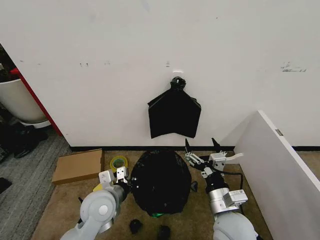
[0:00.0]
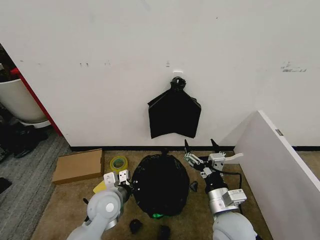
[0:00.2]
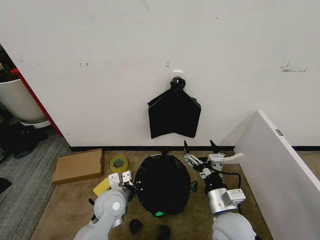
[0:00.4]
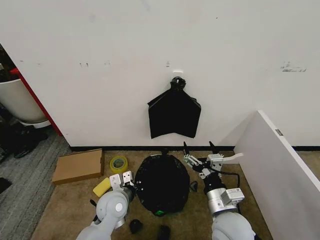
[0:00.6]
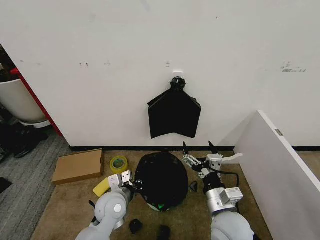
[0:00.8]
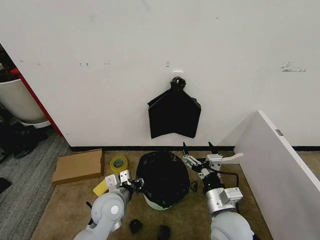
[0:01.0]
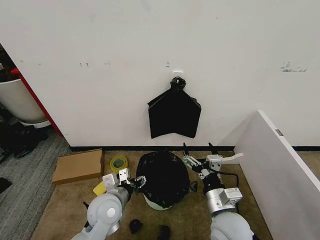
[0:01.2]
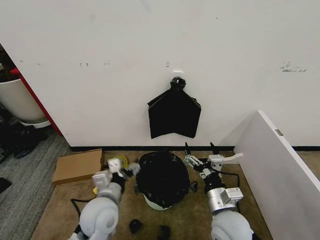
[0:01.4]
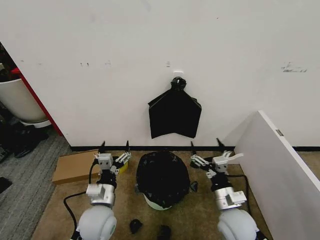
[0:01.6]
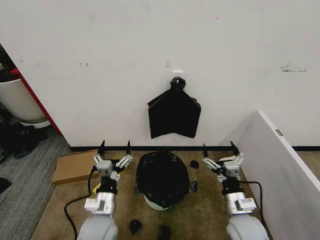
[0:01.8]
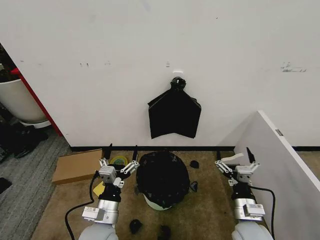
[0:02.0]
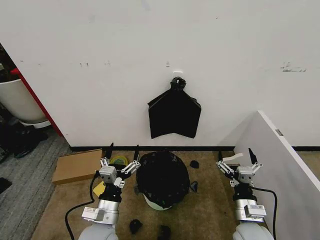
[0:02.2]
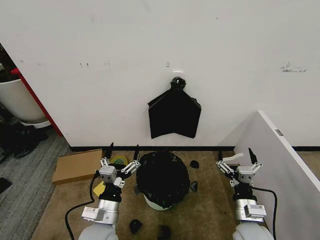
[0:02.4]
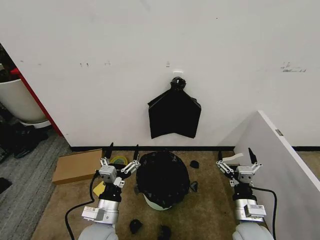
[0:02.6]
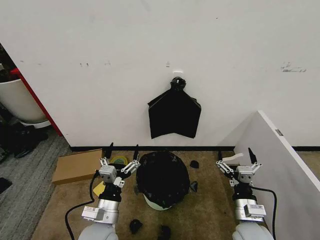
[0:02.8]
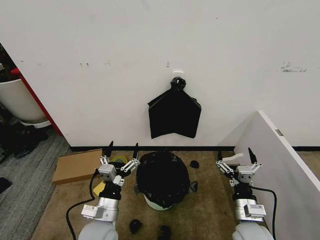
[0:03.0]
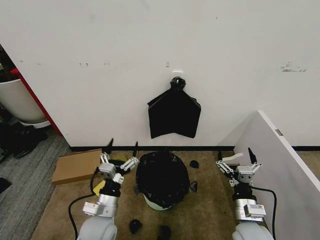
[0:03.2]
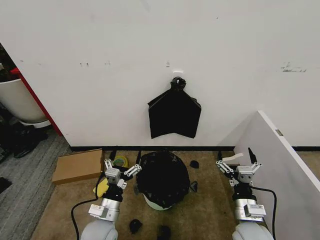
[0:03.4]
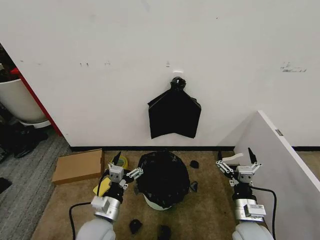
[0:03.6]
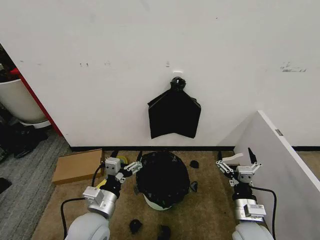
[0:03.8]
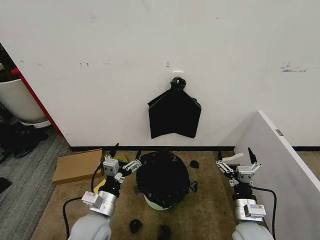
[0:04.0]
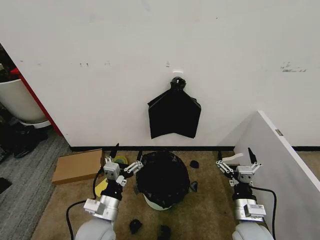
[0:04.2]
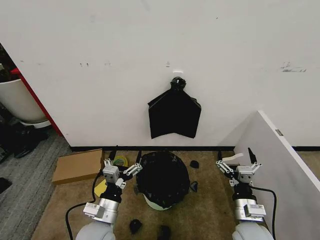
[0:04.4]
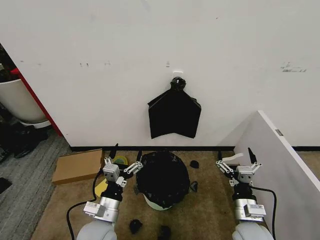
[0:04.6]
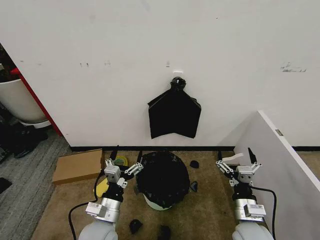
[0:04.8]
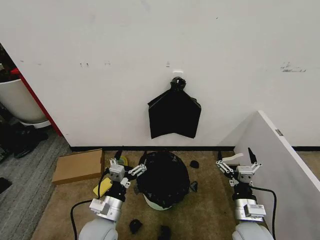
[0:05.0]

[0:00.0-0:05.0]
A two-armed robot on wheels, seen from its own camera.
Task of the whole recording: Place the garbage bag over the trash bin.
0:00.0 to 0:01.6: The right gripper goes about 5 cm downward. The left gripper swings up and down, about 5 cm each way, with 2 reversals, and opens its fingers.

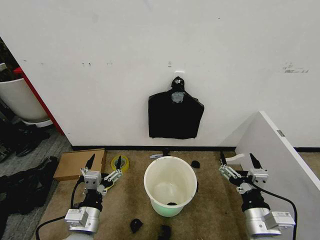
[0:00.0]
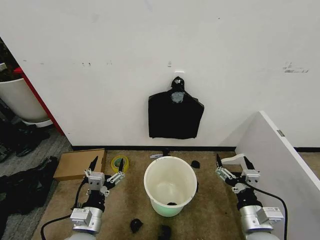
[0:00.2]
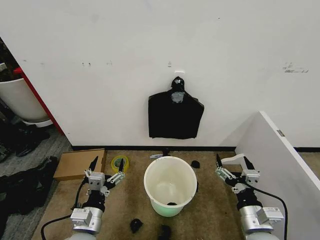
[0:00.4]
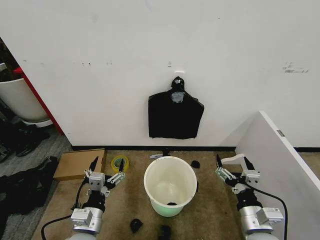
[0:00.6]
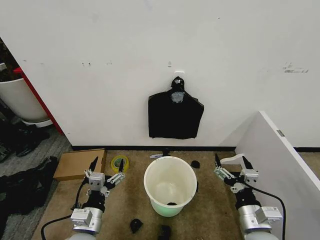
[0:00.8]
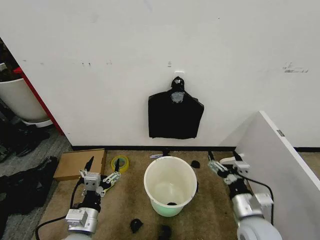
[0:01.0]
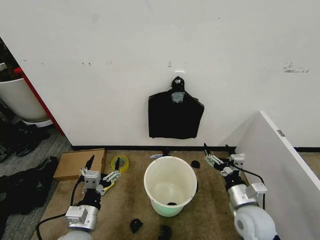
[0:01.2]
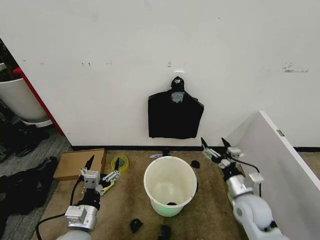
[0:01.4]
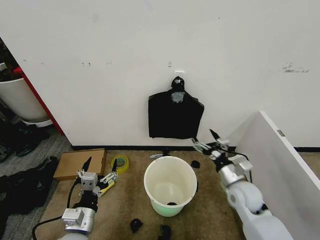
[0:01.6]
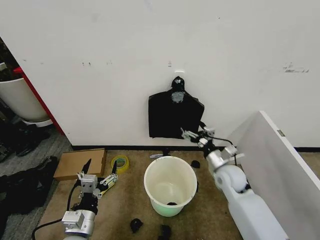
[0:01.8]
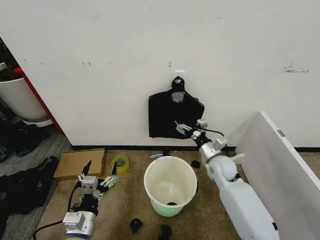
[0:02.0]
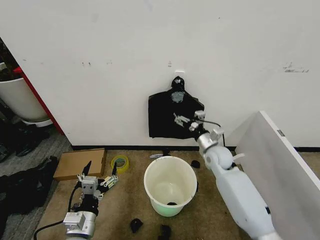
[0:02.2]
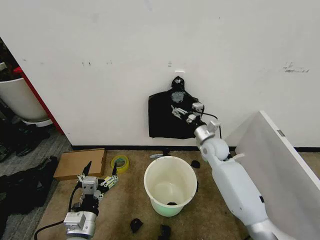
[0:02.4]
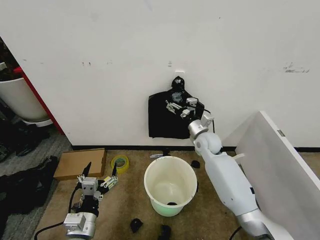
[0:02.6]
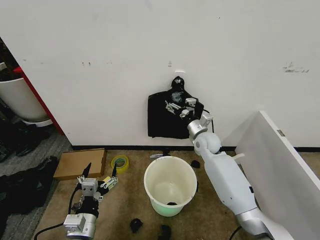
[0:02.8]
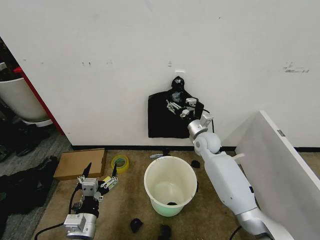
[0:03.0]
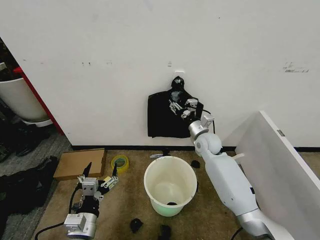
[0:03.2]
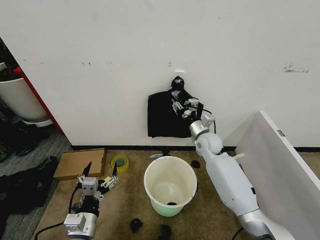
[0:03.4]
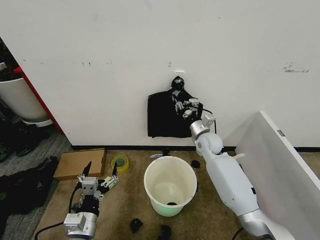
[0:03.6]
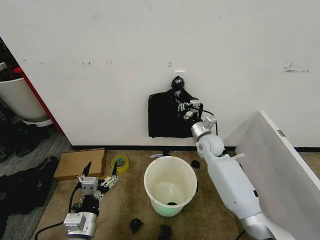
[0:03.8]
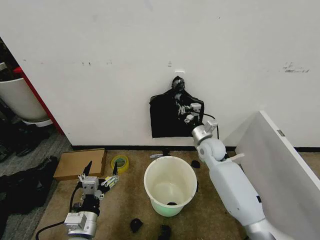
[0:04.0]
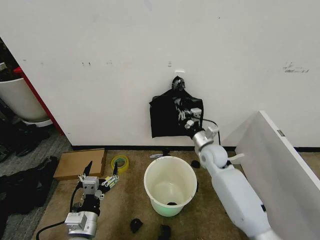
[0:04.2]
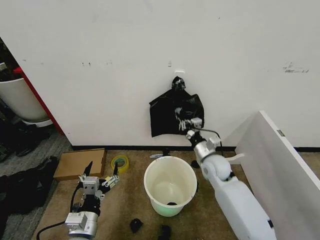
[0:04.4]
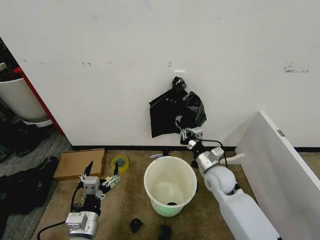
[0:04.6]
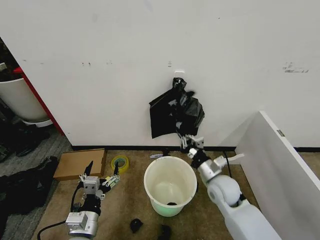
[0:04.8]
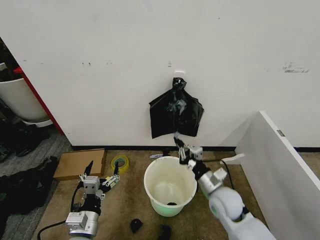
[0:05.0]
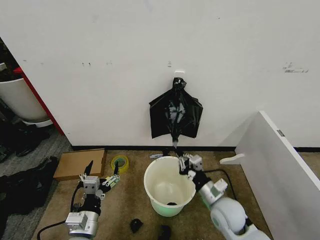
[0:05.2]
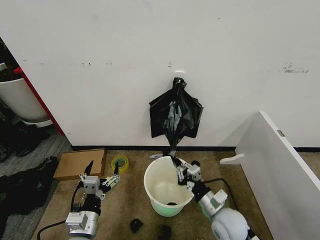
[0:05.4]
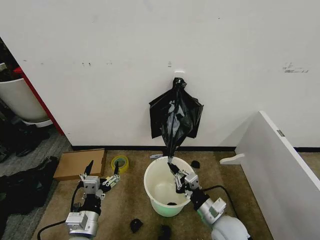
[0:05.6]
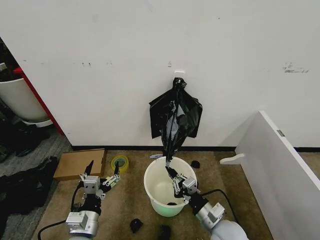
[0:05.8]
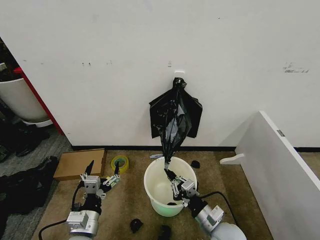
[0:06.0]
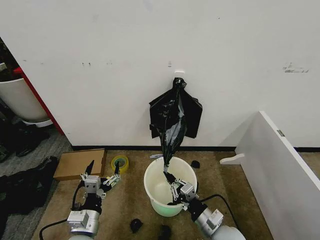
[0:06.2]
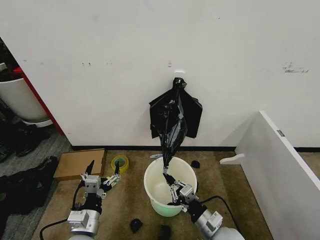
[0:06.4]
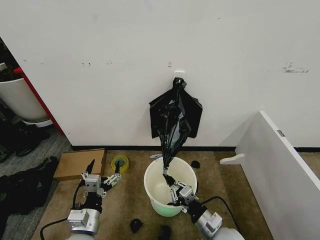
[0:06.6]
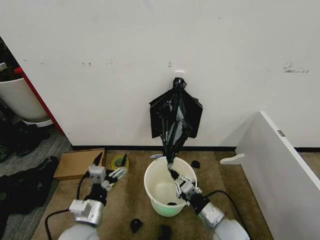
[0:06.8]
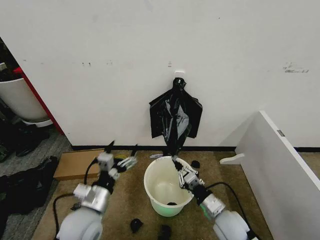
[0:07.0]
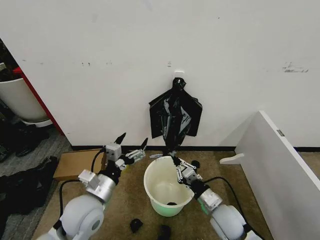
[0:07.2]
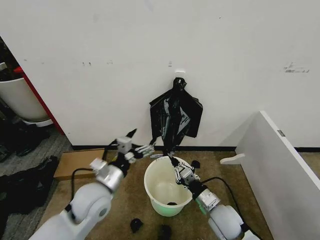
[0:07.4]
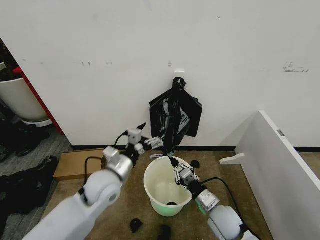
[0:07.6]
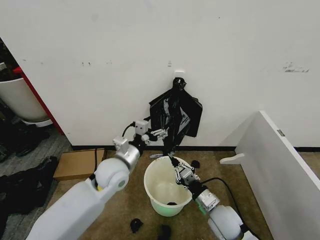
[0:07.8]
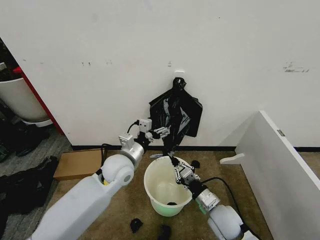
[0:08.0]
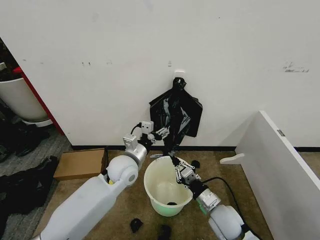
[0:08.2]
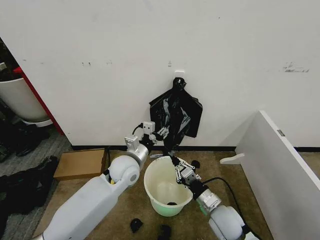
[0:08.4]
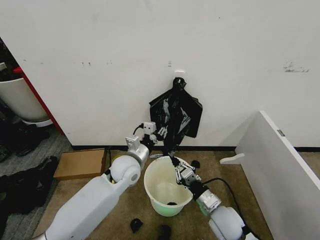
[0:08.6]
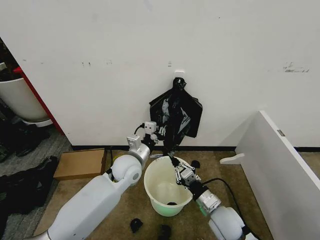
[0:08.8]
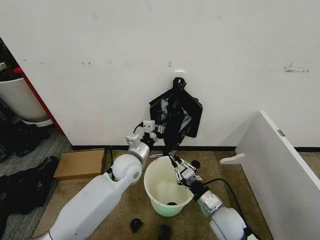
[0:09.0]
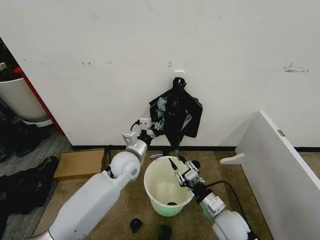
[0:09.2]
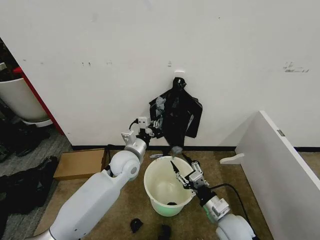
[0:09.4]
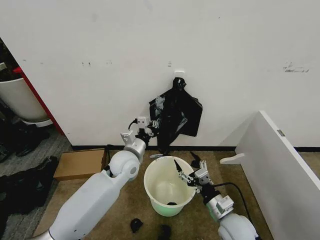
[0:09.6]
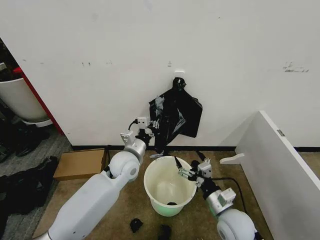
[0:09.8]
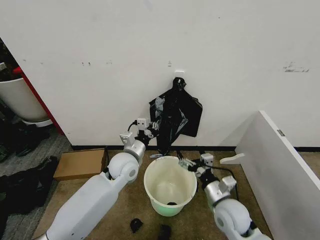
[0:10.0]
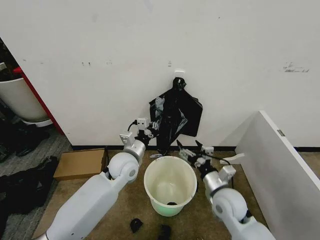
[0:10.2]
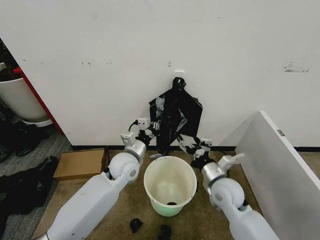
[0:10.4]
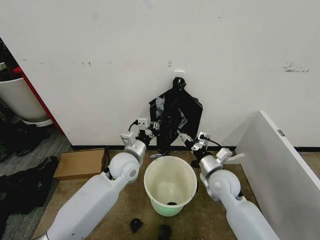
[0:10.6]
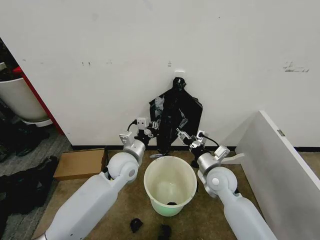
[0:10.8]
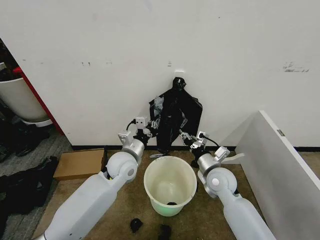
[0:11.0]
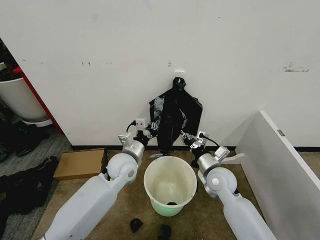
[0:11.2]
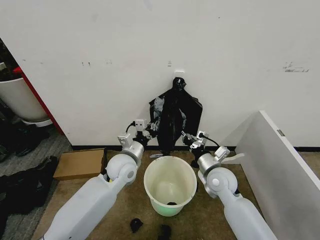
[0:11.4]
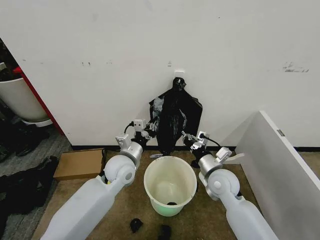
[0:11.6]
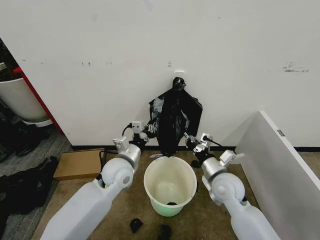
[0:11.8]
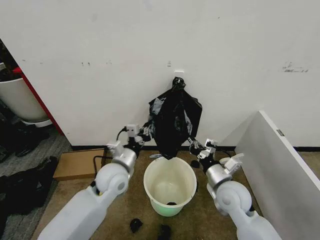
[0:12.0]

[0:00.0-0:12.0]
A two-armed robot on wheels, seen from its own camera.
Task of the whole recording: Place the garbage bag over the trash bin.
0:01.6 to 0:03.0: The right gripper moves forward and to the left, approximately 20 cm.
0:03.0 to 0:04.4: The right gripper shifts roughly 10 cm backward, and closes up.
0:04.4 to 0:06.0: The right gripper heads backward, covering about 20 cm.
0:06.0 to 0:07.6: The left gripper shifts approximately 20 cm forward and upward; the right gripper shifts approximately 5 cm forward.
0:07.6 to 0:09.0: The left gripper heads forward and to the right, covering about 10 cm, and closes up.
0:09.0 to 0:10.4: The right gripper heads forward and upward, covering approximately 10 cm, and opens its fingers.
0:10.4 to 0:12.0: The right gripper closes its fingers, while the left gripper ends up some 5 cm from where it was.

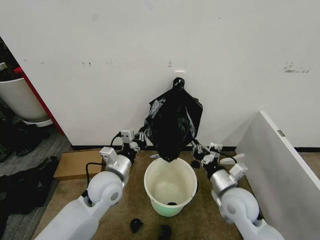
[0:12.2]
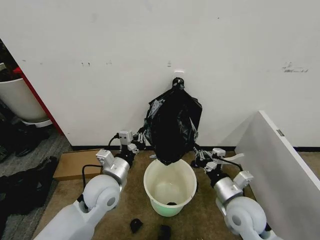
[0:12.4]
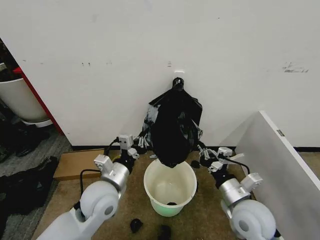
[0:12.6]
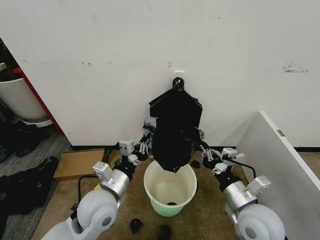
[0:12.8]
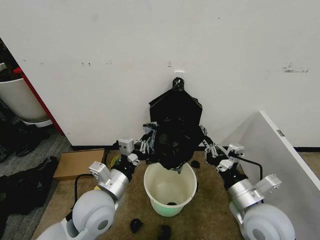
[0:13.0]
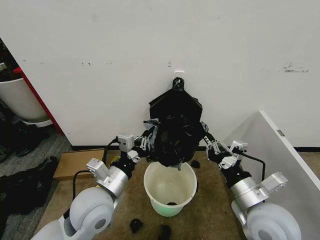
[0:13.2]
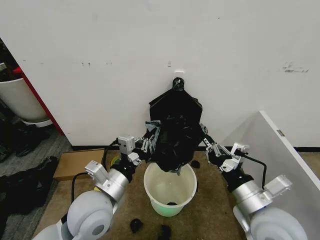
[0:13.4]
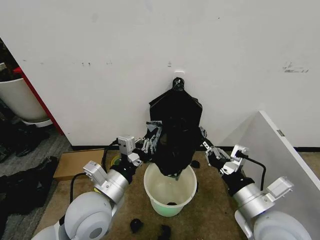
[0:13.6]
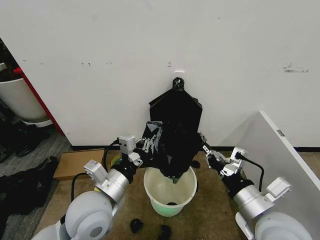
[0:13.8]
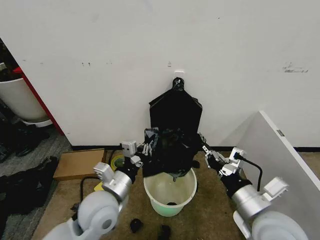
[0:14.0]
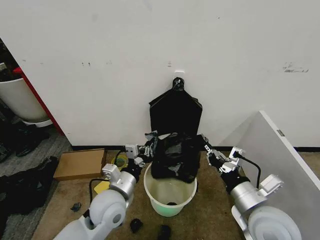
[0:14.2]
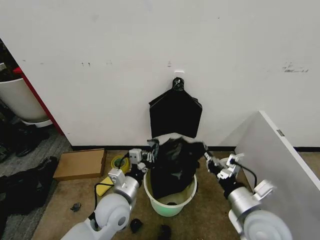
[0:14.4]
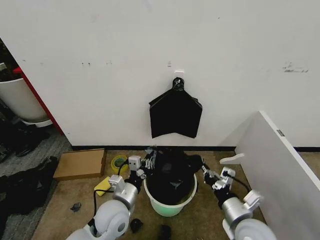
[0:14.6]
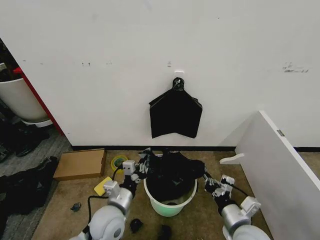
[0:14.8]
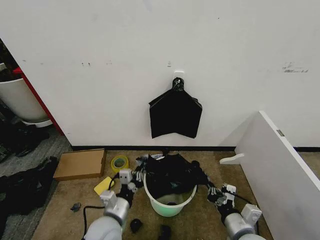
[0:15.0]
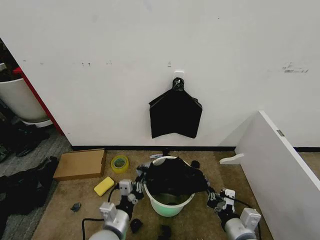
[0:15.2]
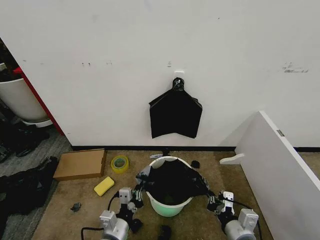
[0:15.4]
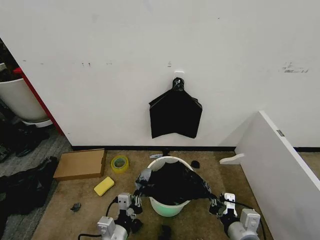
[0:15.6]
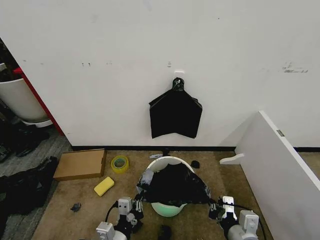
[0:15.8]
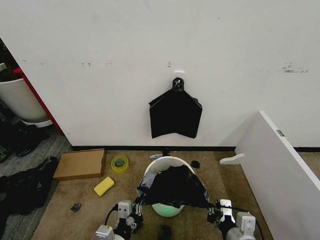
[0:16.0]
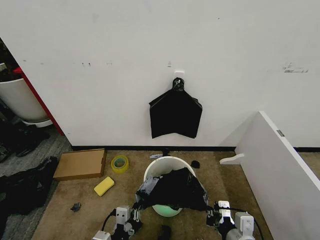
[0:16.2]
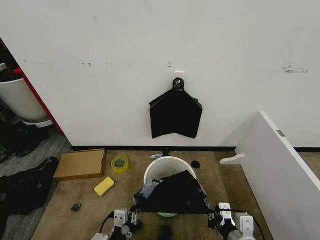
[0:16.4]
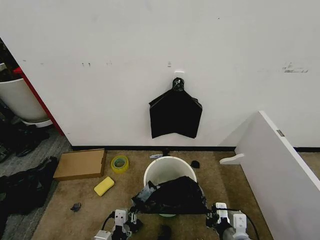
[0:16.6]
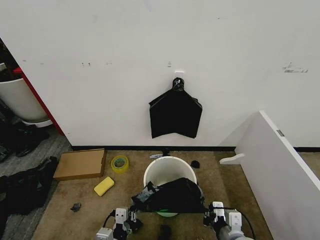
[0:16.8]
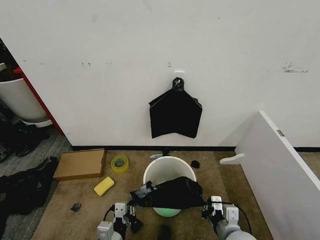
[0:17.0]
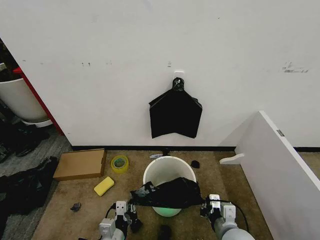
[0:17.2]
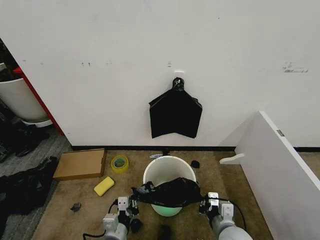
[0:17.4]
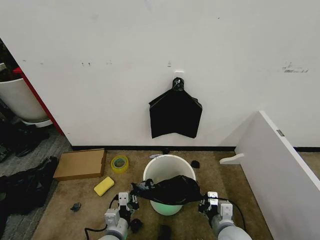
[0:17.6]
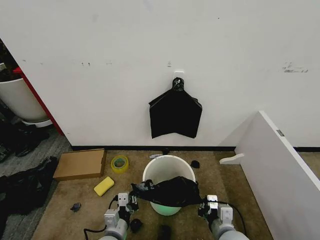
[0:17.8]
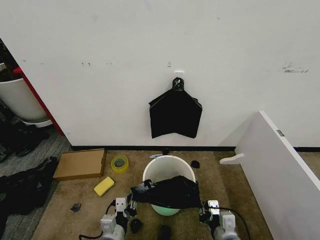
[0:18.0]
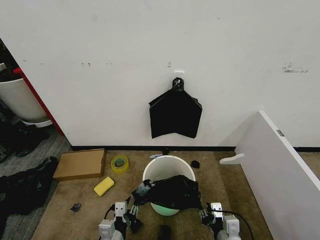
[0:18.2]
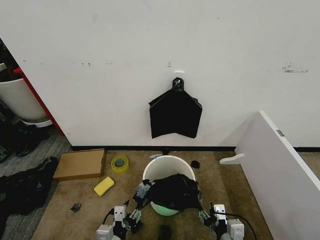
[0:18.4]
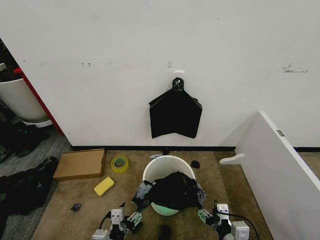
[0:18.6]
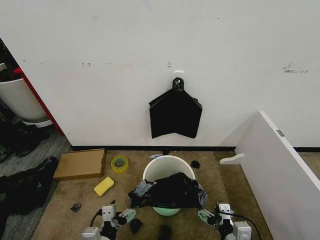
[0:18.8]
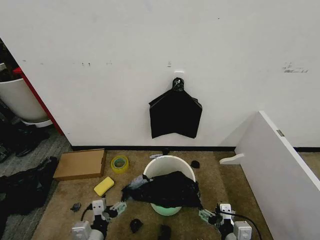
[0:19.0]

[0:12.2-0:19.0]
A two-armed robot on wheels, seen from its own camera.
Task of the whole recording: Place the garbage bag over the trash bin.
0:12.2 to 0:13.6: The left gripper moves backward and upward, about 10 cm. Meanwhile the right gripper moves upward and backward, approximately 15 cm.
0:13.6 to 0:15.0: The two grippers go some 15 cm downward.
0:15.0 to 0:16.2: The left gripper is displaced backward by about 10 cm.
0:16.2 to 0:17.6: The left gripper goes about 10 cm forward and downward. Meanwhile the right gripper is displaced downward and forward by roughly 10 cm.
0:17.6 to 0:19.0: The left gripper is displaced to the left by roughly 5 cm, and opens its fingers; the right gripper heads backward, covering some 5 cm, and opens its fingers.
